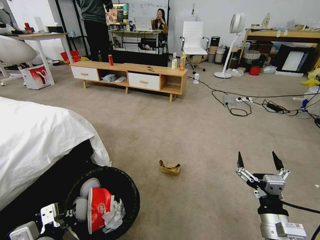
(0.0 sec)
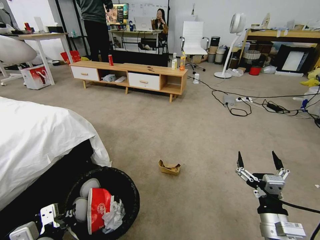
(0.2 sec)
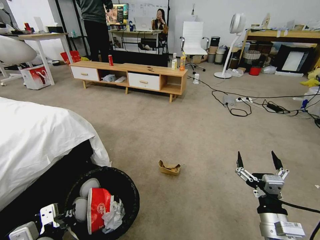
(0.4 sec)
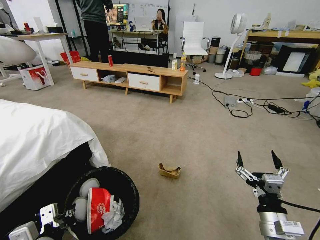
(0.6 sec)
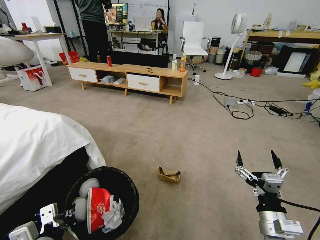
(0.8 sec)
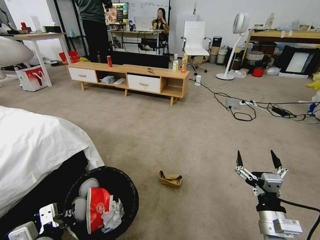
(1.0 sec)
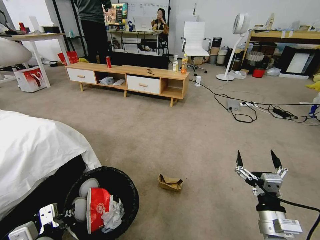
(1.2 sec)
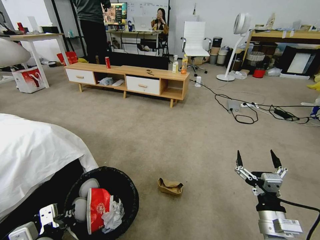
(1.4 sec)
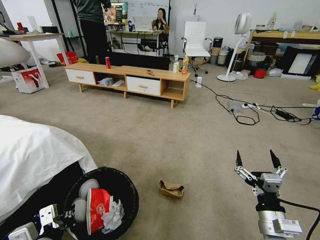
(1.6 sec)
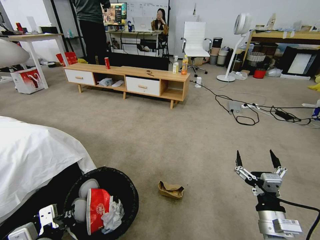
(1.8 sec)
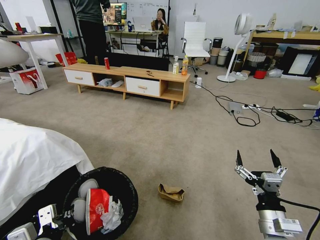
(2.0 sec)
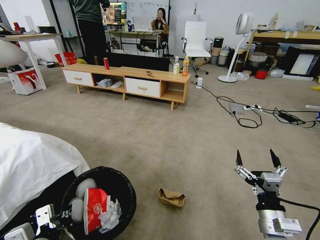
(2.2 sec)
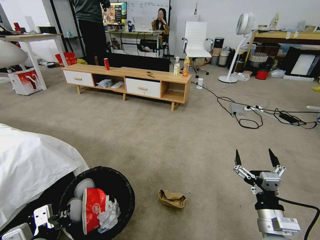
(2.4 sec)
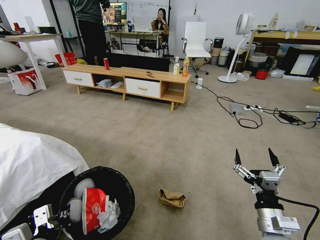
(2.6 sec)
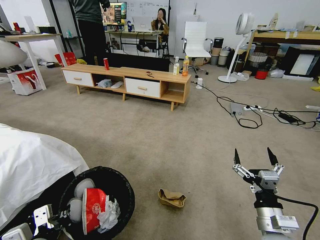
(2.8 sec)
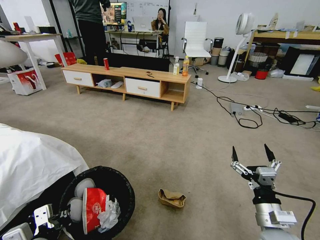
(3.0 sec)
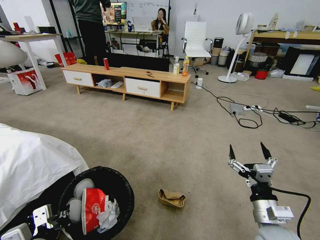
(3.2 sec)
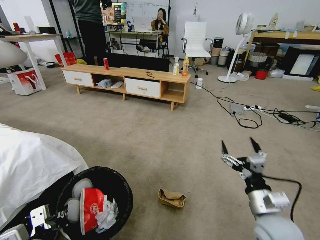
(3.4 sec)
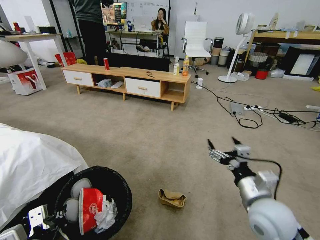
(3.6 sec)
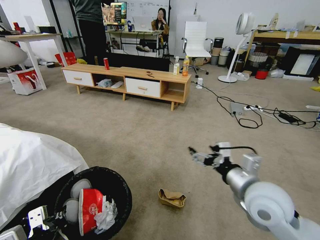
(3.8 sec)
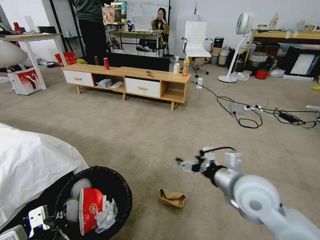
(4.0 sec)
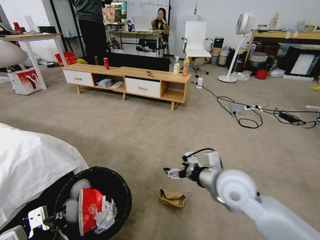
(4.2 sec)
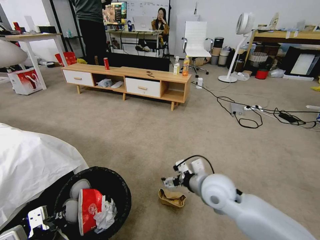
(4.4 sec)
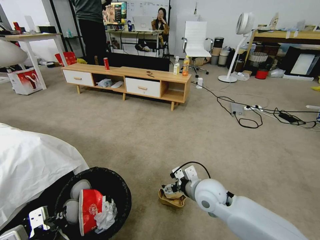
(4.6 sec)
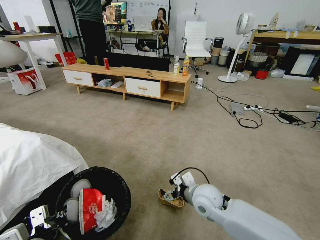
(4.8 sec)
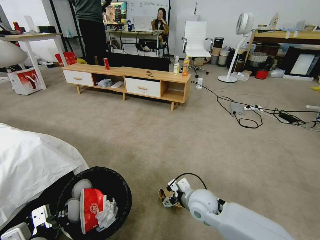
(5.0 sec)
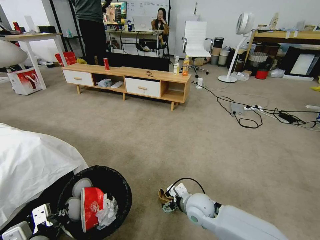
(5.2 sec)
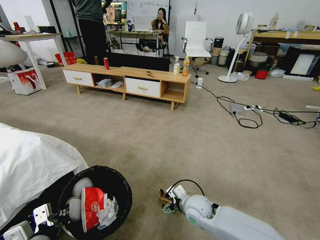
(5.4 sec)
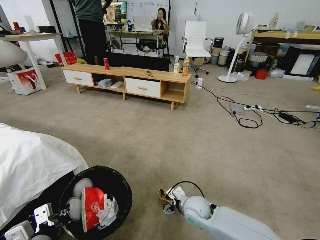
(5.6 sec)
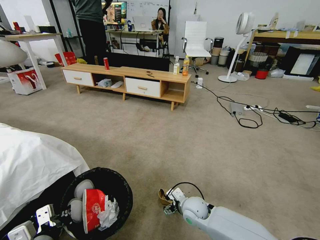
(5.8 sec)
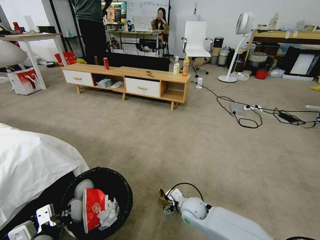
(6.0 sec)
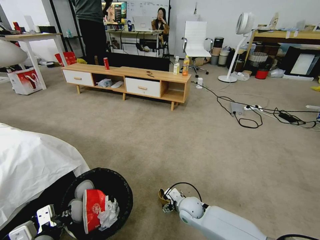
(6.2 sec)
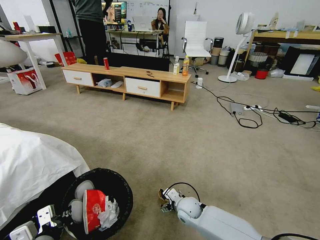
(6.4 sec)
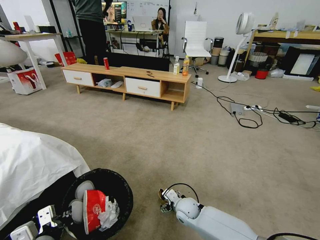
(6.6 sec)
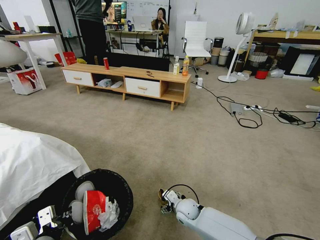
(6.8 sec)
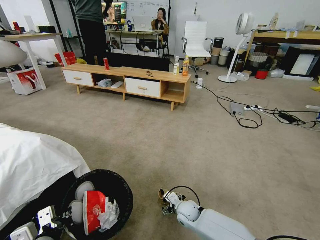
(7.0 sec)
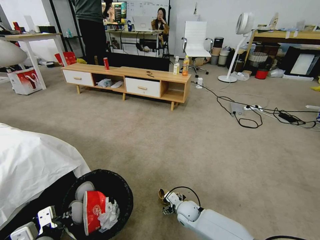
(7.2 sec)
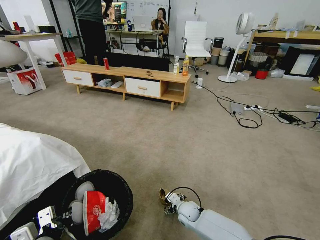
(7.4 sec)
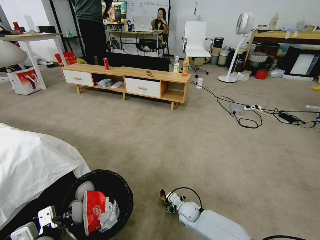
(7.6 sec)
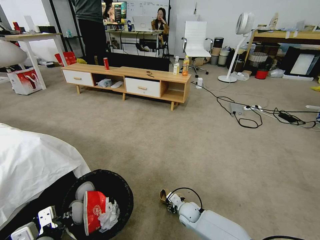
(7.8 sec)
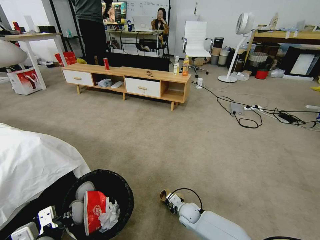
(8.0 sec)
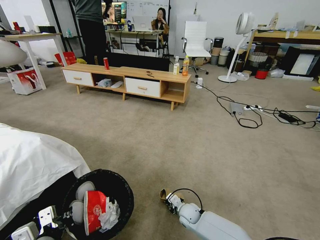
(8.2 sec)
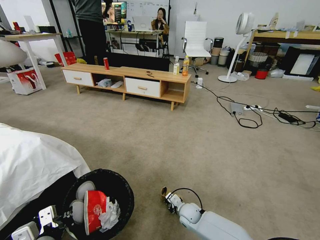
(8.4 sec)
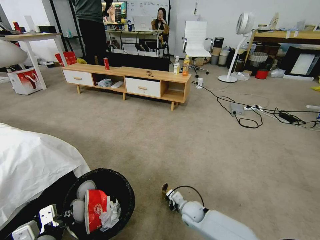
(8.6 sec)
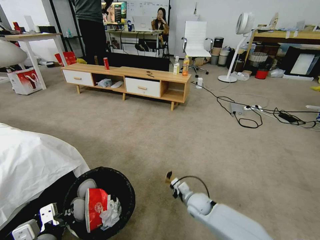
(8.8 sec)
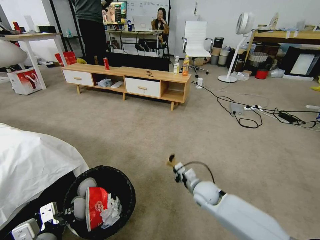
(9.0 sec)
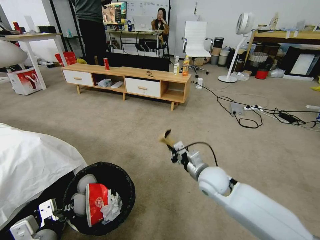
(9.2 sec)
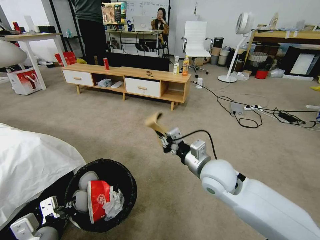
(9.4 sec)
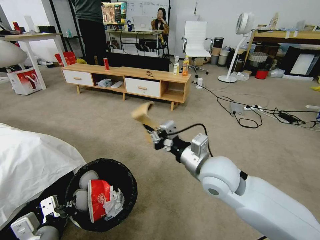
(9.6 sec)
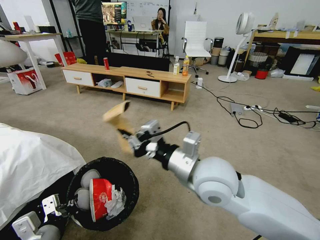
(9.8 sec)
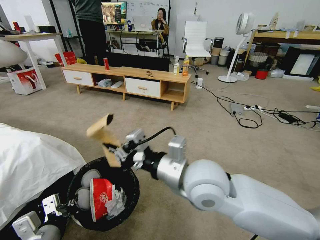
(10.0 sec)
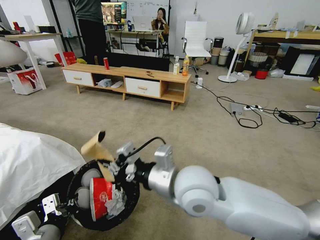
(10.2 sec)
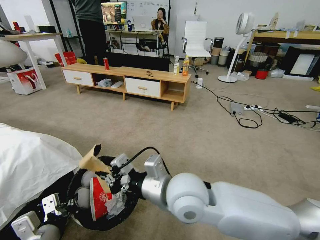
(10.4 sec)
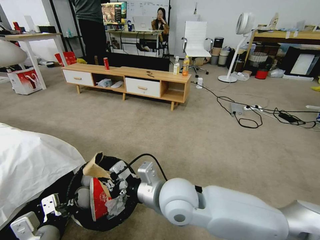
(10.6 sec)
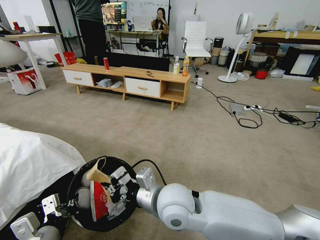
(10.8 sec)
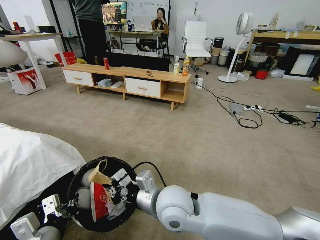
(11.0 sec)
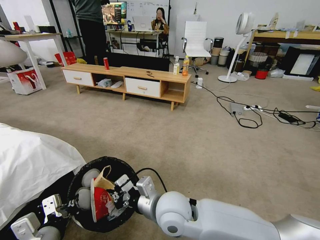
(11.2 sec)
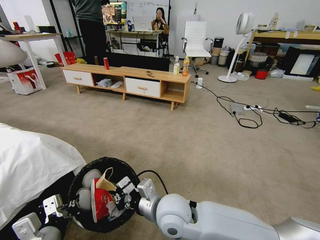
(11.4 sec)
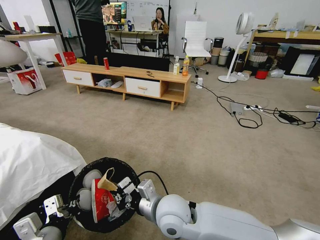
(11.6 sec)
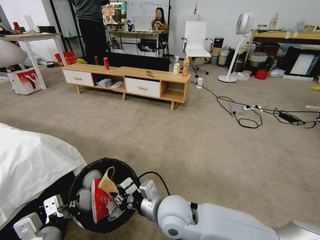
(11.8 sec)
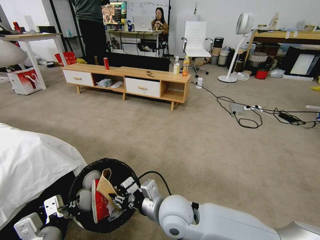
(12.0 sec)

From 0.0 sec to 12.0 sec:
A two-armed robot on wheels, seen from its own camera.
Task of the whole recording: Pick up the trash bin and place the garbage on the floor into it.
From 3.0 sec to 4.4 sec: The right gripper travels to the left and forward by roughly 20 cm.
From 4.4 sec to 6.0 sec: The right gripper is displaced downward by about 20 cm.
From 6.0 sec to 7.6 sec: The right gripper moves downward, about 10 cm.
From 7.6 sec to 9.0 sec: The right gripper goes approximately 15 cm upward, and closes its fingers.
From 9.0 sec to 10.4 sec: The right gripper travels upward, backward and to the left by roughly 30 cm.
From 10.4 sec to 12.0 sec: The right gripper moves downward, about 10 cm, and opens its fingers.

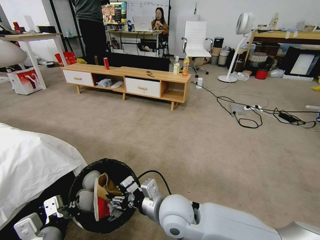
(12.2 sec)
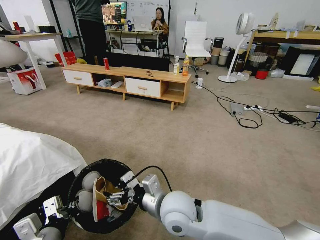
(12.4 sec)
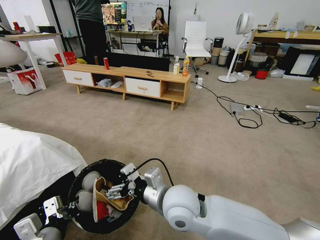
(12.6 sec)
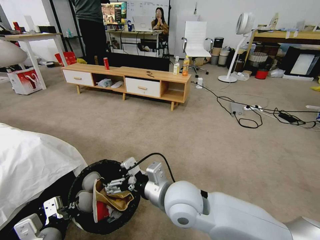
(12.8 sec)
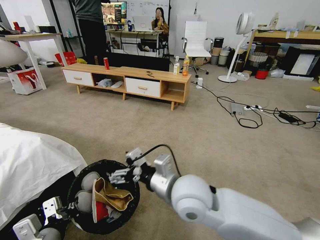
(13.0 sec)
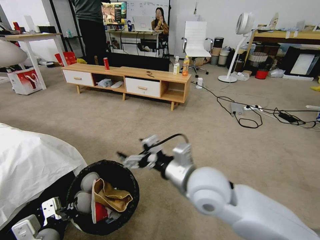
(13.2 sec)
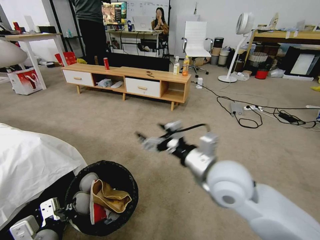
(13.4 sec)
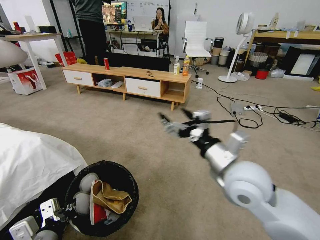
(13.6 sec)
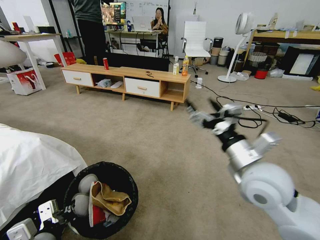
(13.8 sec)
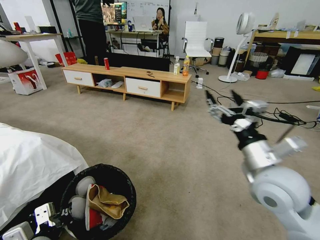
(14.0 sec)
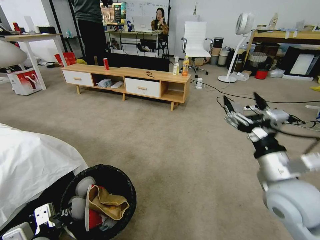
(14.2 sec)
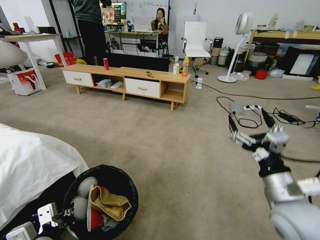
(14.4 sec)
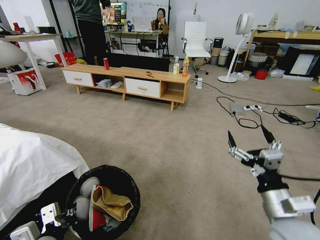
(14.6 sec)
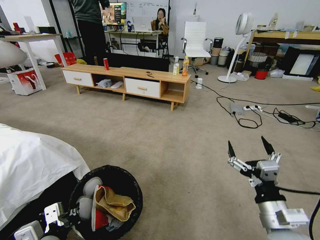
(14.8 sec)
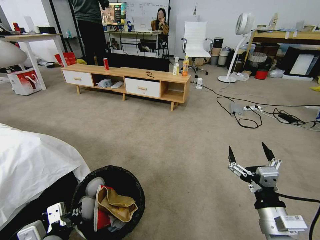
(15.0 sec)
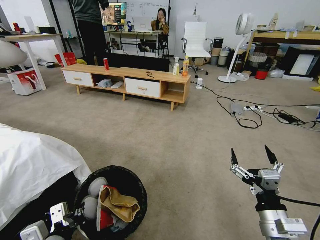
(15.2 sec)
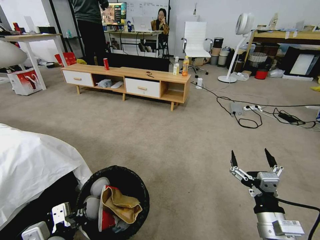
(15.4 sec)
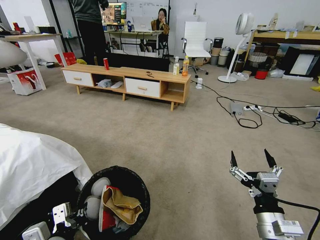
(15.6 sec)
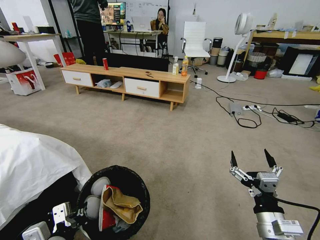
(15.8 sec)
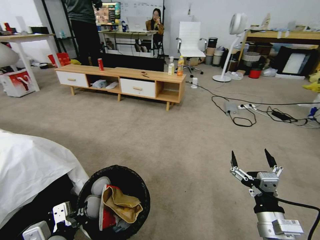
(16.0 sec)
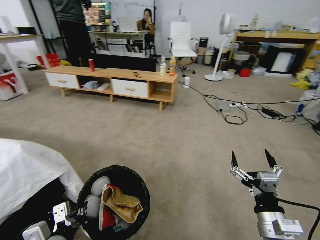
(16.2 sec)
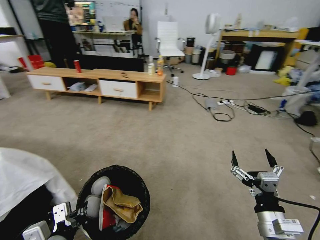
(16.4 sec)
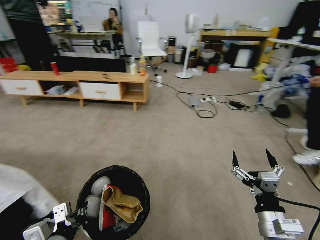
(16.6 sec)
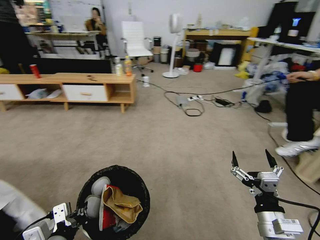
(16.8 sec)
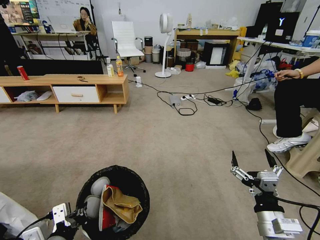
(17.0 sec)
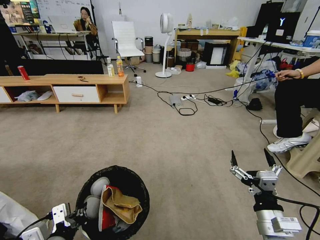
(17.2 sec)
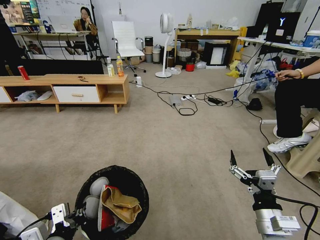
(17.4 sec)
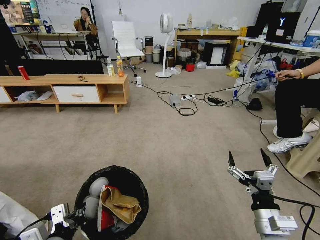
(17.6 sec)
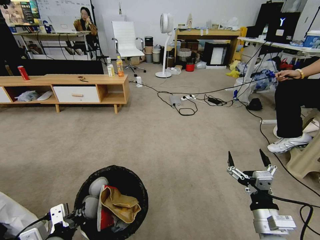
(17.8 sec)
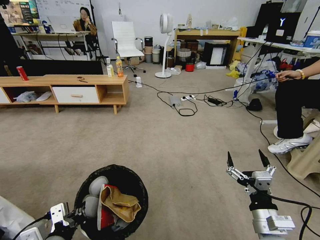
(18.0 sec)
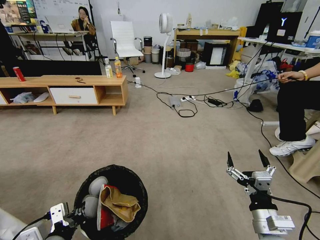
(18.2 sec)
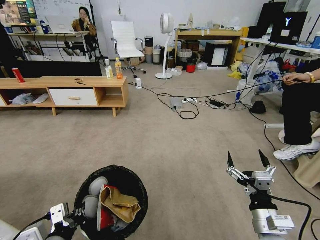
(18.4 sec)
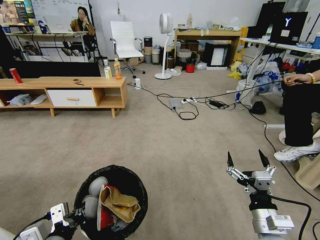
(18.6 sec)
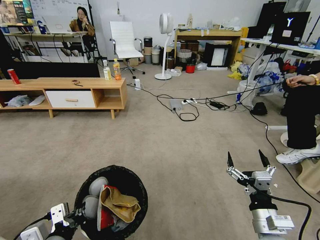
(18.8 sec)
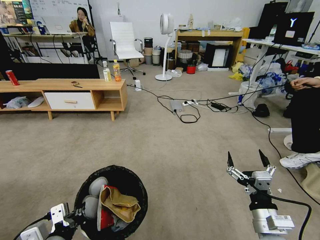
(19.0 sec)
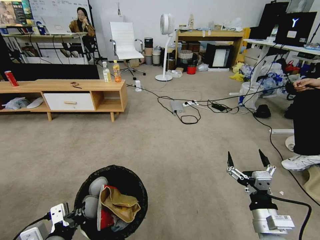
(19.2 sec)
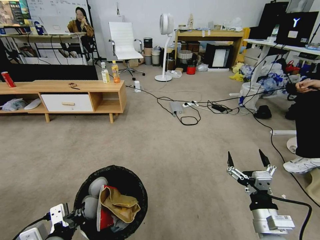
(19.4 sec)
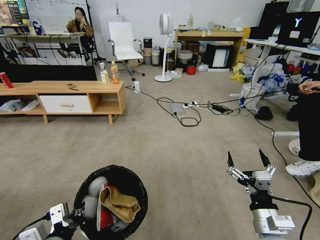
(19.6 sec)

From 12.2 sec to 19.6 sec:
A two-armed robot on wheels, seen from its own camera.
Task of the whole recording: Pick up the trash bin and place the garbage on the floor into it.
From 12.2 sec to 13.6 sec: The right gripper shifts approximately 20 cm to the right and upward, and opens.
From 13.6 sec to 15.2 sec: The right gripper is displaced downward, backward and to the right by roughly 20 cm.
